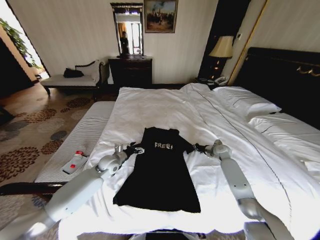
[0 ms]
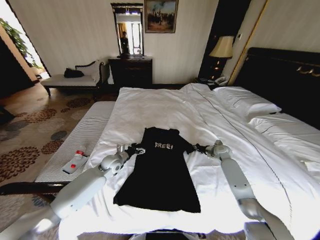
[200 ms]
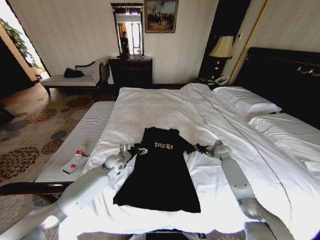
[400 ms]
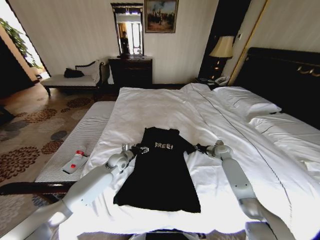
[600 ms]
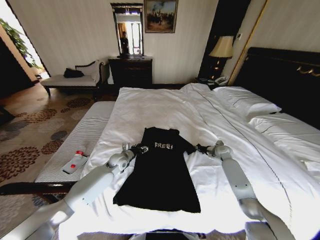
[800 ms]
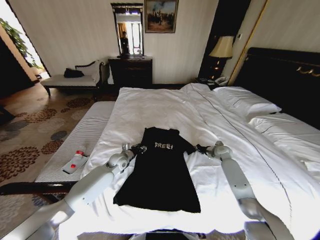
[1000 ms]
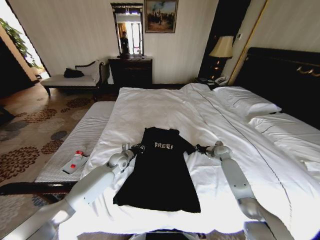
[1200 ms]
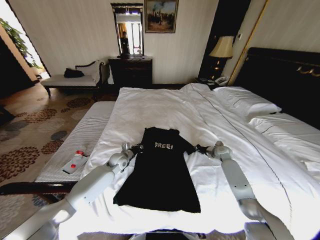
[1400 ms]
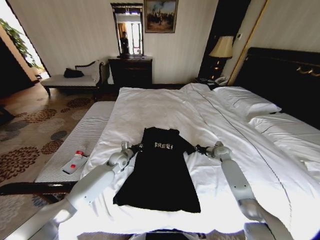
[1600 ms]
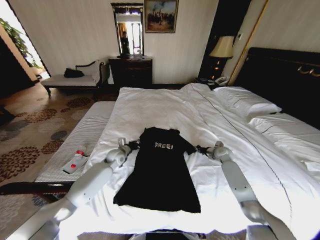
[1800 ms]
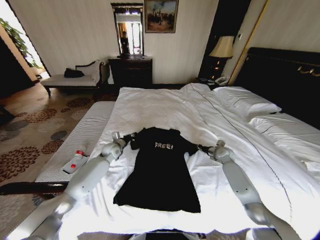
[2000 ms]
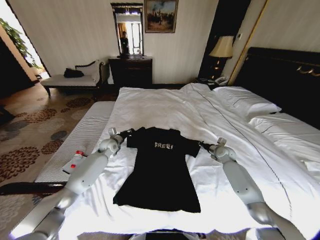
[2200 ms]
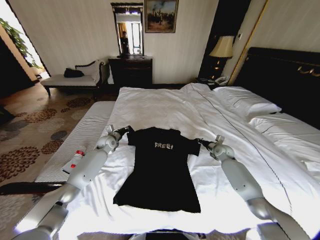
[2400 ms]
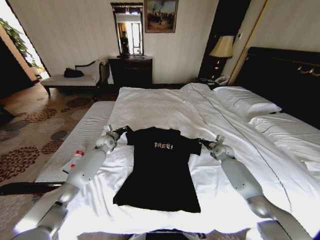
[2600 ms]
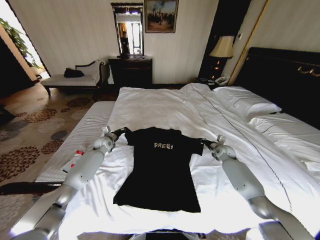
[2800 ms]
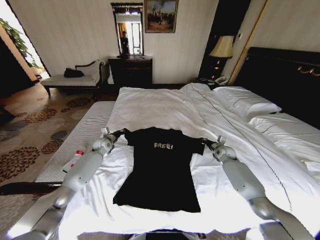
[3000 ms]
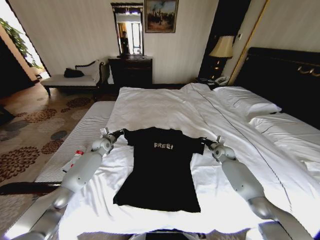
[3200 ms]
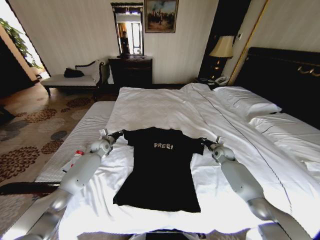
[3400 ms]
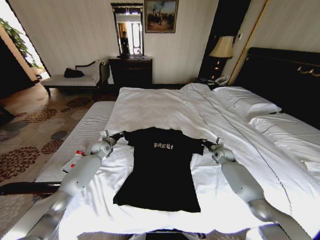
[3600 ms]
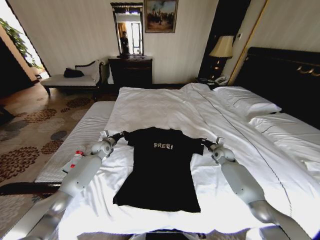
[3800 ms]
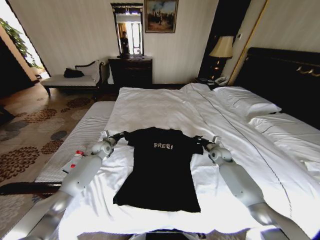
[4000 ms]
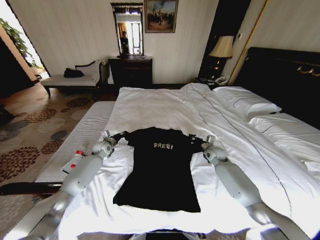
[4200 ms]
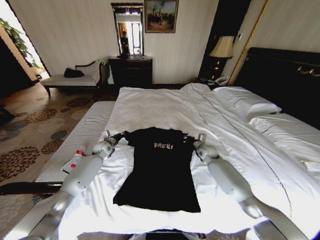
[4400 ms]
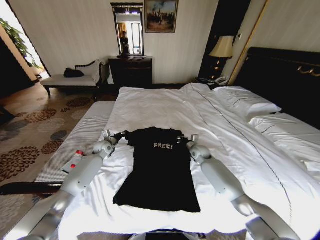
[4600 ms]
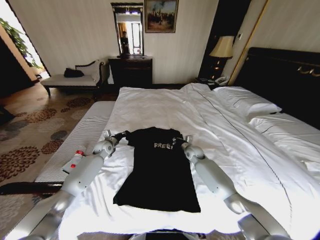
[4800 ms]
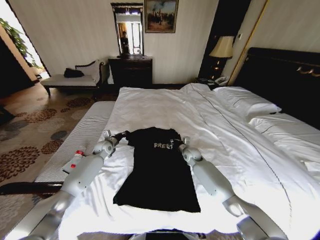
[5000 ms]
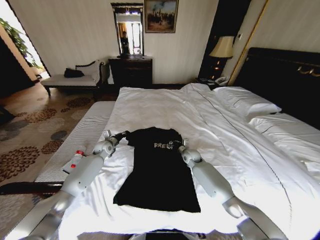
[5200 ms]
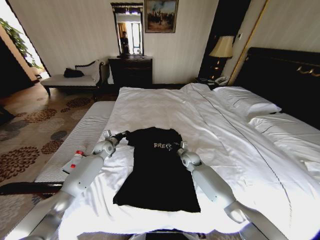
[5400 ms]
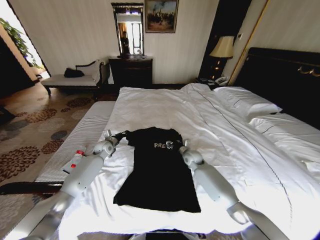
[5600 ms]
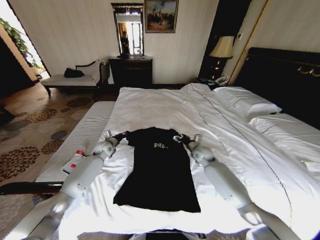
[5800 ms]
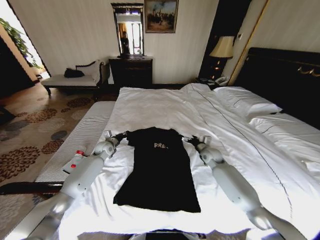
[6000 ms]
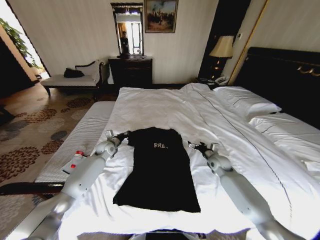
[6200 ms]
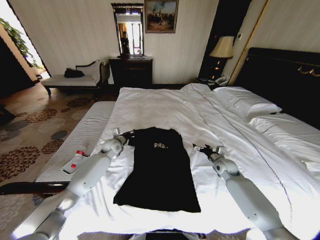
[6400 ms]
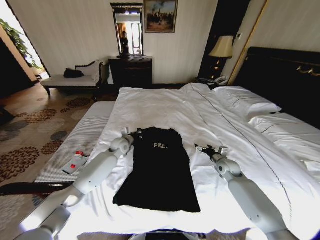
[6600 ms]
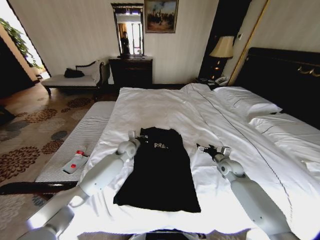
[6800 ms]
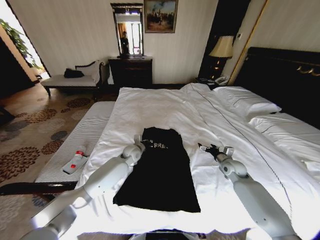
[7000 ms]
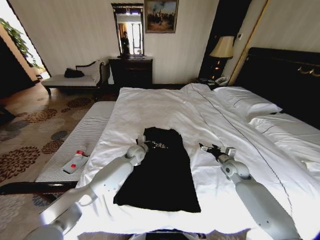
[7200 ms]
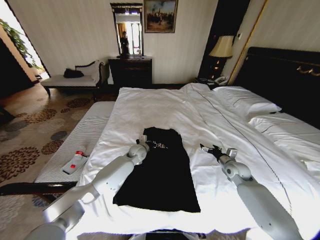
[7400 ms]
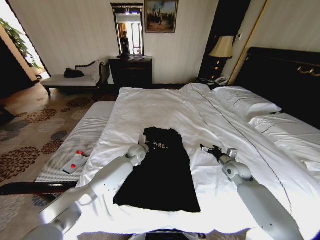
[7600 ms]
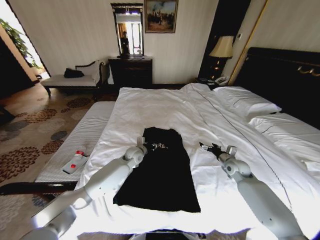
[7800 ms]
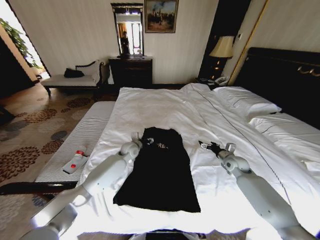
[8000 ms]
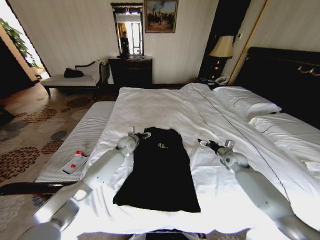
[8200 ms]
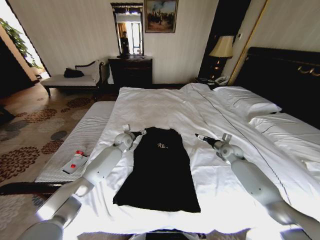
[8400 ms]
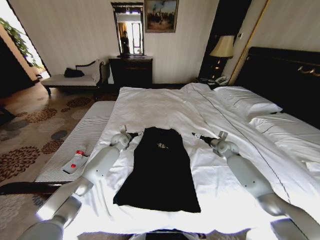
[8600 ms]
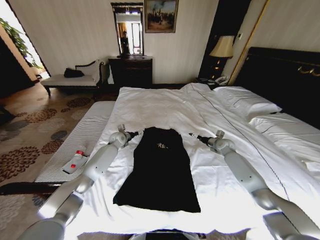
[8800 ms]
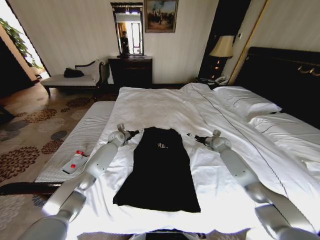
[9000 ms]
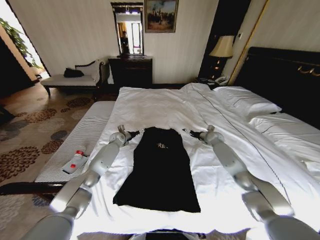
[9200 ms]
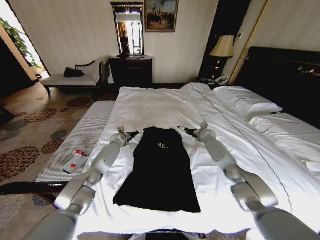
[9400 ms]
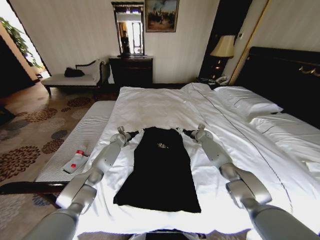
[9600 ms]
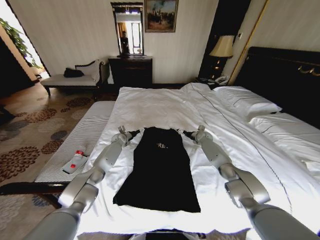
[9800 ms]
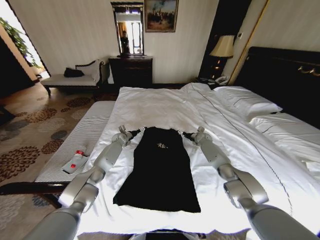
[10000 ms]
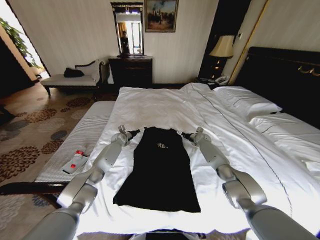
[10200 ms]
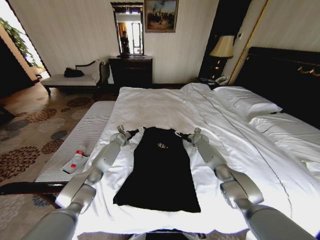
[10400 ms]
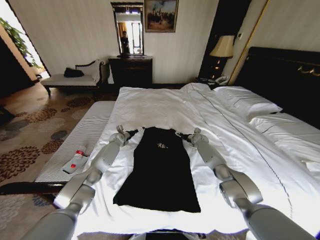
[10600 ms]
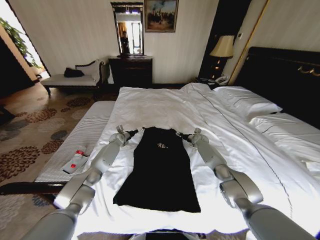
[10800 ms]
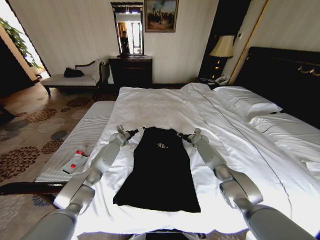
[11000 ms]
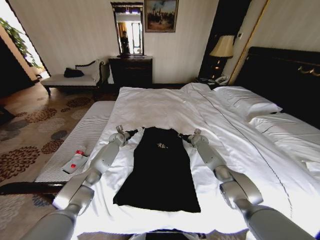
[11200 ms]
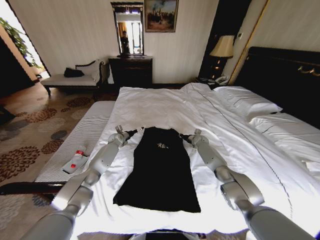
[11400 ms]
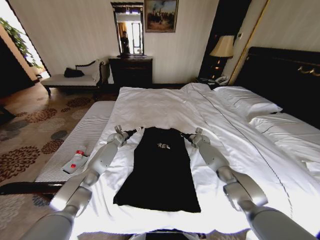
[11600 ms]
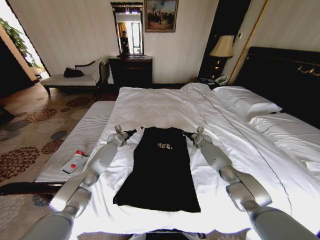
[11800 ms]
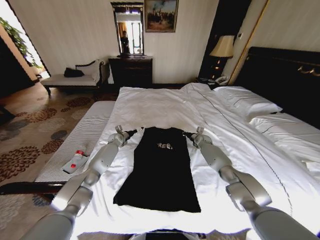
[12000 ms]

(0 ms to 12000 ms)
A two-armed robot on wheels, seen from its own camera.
Task of the whole recording: Fold the clothes on the bed.
0 ms - 1600 ms: The left gripper ends up roughly 5 cm from where it was, and closes.
1600 ms - 3000 ms: The left gripper shifts roughly 15 cm to the left and forward.
3000 ms - 4400 ms: The right gripper goes approximately 10 cm to the left.
4400 ms - 6000 ms: The right gripper goes to the left and returns, about 10 cm each way, and opens up.
6000 ms - 7600 ms: The left gripper moves to the right, some 20 cm. The right gripper shifts approximately 10 cm to the right and backward.
7600 ms - 9000 ms: The left gripper is displaced to the left and forward by approximately 20 cm, and opens. Meanwhile the right gripper shifts roughly 15 cm forward.
9000 ms - 10400 ms: The right gripper shifts about 10 cm to the left and forward.
10400 ms - 12000 ms: The right gripper closes.

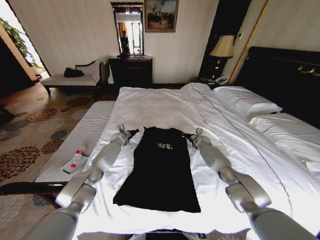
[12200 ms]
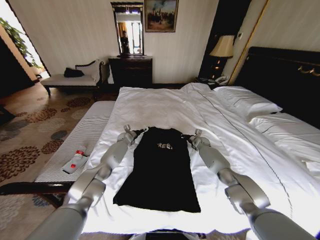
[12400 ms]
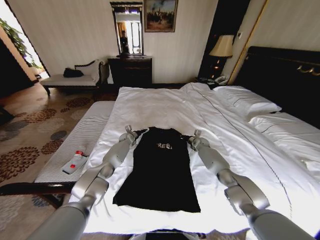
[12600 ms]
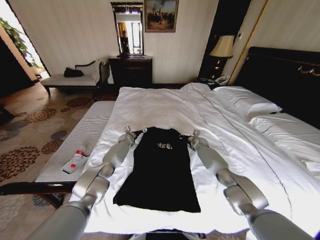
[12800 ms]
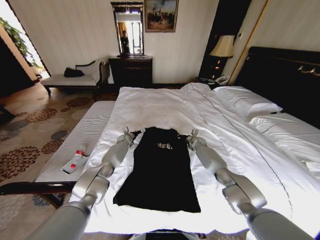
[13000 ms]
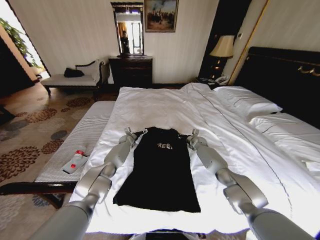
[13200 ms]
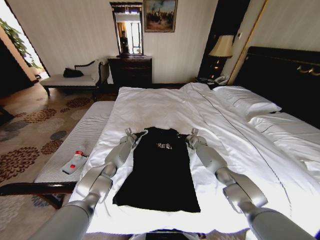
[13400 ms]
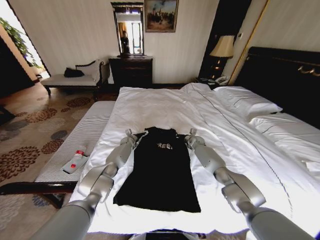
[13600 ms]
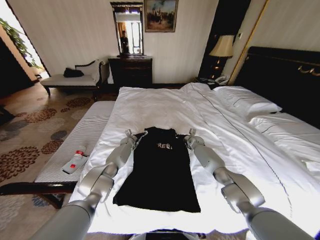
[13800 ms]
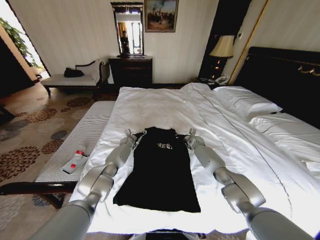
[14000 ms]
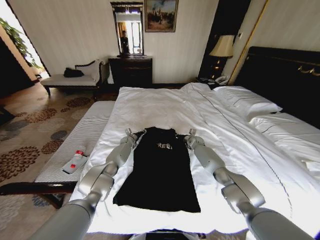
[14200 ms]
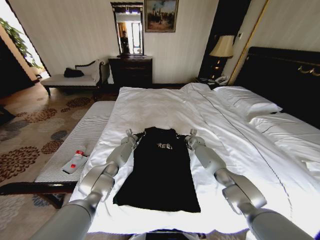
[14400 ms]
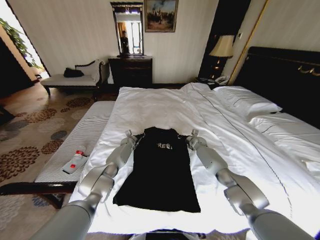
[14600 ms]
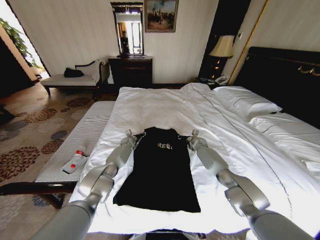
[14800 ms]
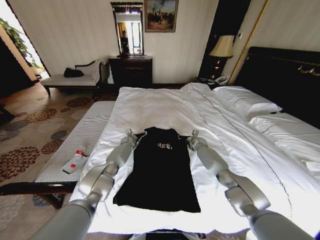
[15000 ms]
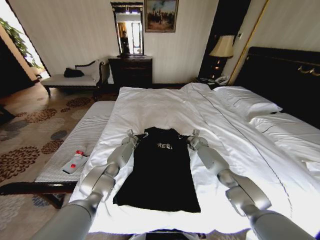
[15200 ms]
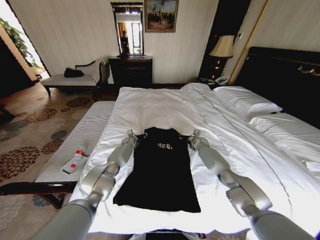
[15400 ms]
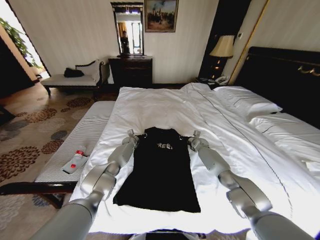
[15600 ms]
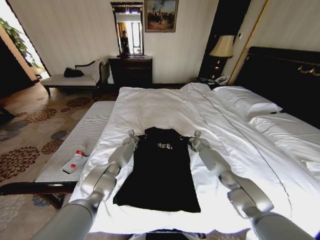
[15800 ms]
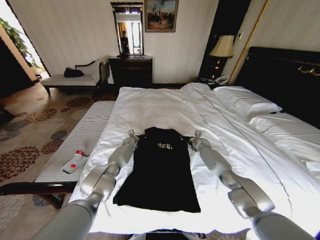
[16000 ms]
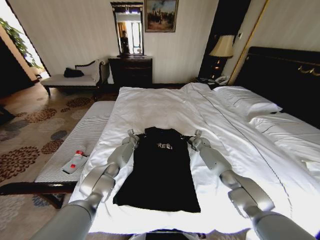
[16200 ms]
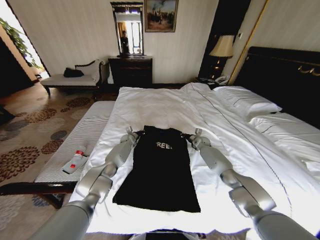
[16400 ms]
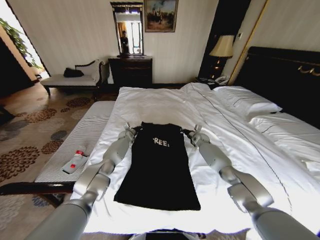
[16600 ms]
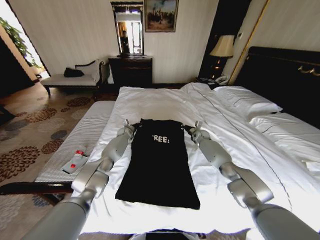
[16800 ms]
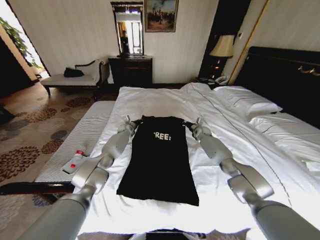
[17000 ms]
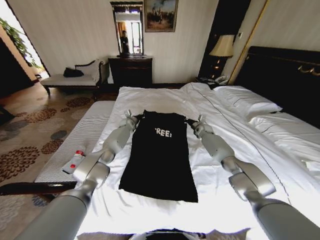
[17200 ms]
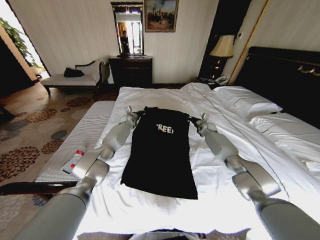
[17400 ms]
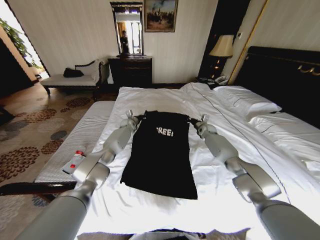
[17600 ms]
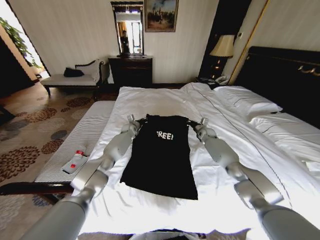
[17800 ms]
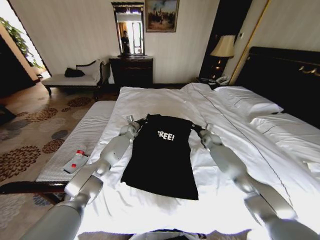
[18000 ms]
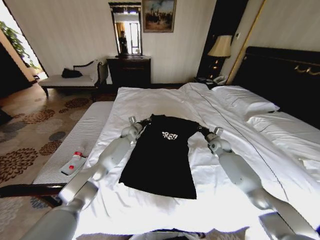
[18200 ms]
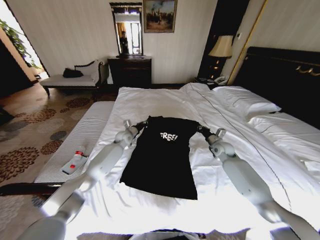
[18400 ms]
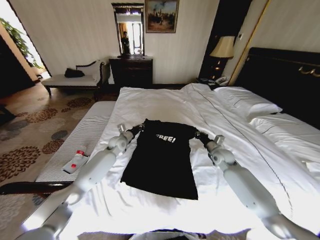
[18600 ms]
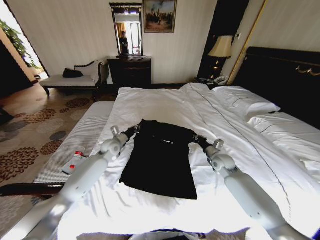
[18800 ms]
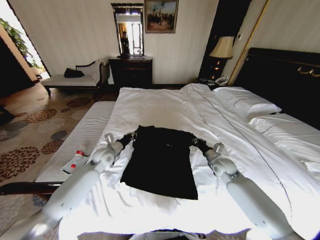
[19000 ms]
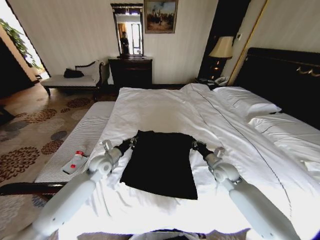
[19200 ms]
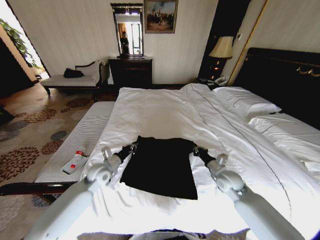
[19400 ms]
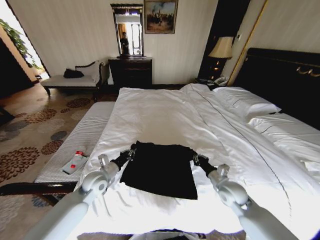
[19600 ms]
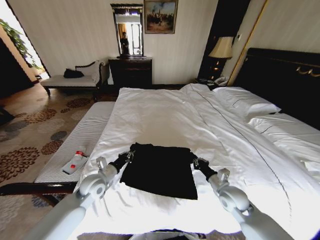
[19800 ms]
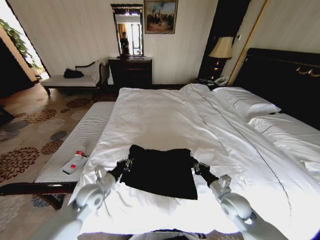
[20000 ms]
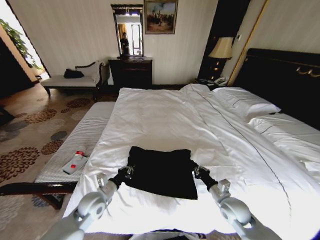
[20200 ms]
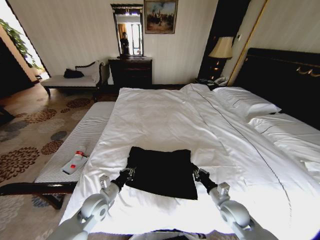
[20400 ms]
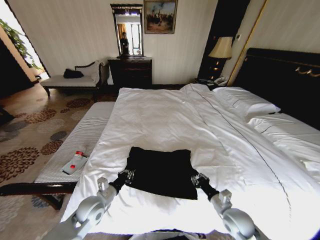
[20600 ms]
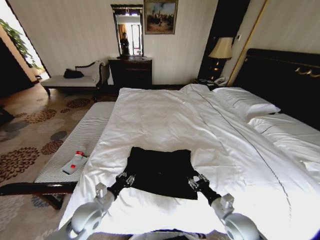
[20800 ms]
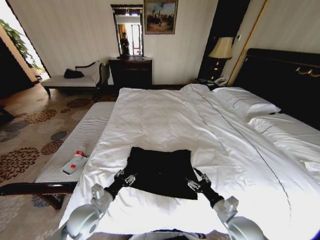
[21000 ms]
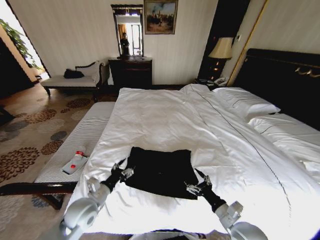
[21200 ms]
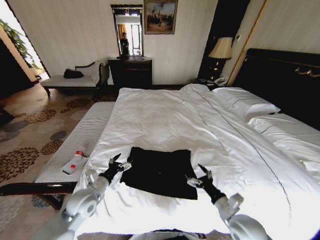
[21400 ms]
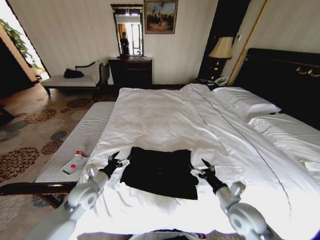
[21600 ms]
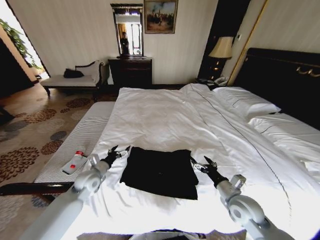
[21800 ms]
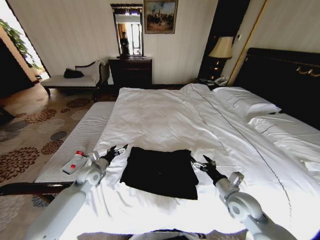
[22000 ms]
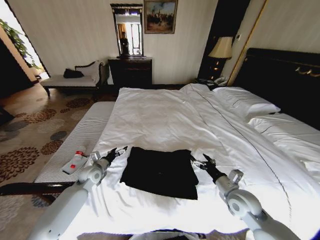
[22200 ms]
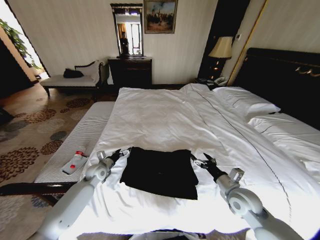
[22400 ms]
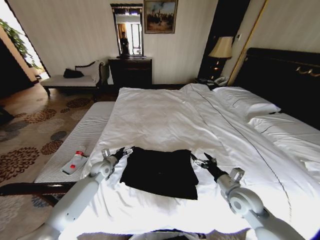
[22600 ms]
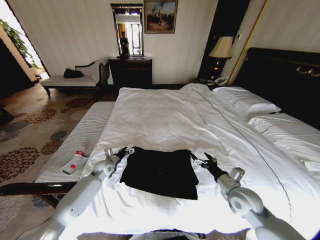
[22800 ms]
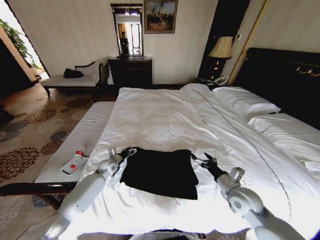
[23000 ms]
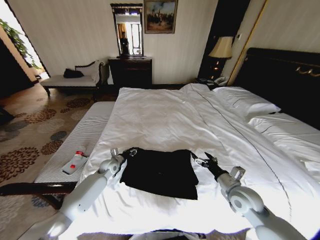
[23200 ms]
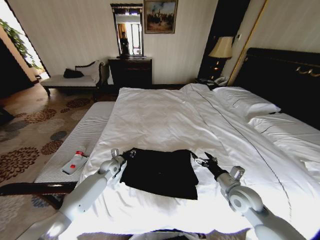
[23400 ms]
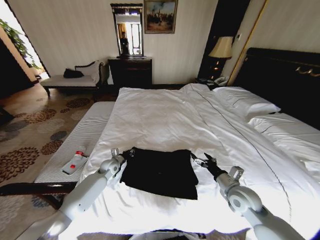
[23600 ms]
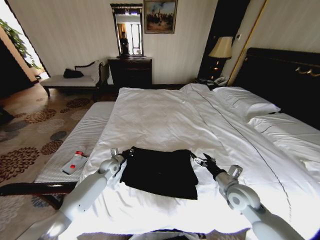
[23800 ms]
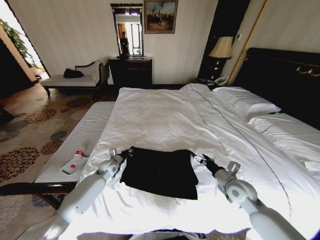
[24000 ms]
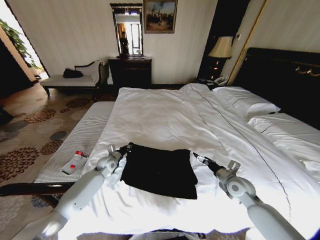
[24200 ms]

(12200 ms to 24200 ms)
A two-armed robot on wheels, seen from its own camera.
Task of the whole recording: Fold the clothes on the bed.
12200 ms - 13800 ms: The left gripper is displaced downward by approximately 5 cm.
13800 ms - 15200 ms: The left gripper closes, then reopens.
15200 ms - 16600 ms: The left gripper moves upward, approximately 5 cm, and closes.
16600 ms - 18200 ms: The left gripper shifts some 5 cm upward; the right gripper is displaced backward and to the right by roughly 10 cm.
18200 ms - 19800 ms: Both grippers move backward, roughly 30 cm.
19800 ms - 21200 ms: The two grippers go roughly 10 cm backward. The right gripper opens, while the left gripper opens up.
21200 ms - 22600 ms: The left gripper travels forward by approximately 20 cm, while the right gripper travels forward by about 10 cm.
22600 ms - 24200 ms: The left gripper closes. Meanwhile the right gripper travels forward by about 5 cm.
